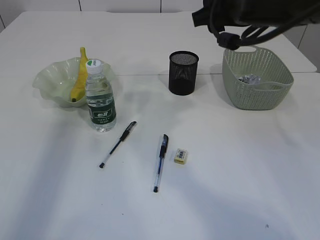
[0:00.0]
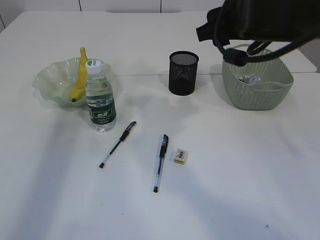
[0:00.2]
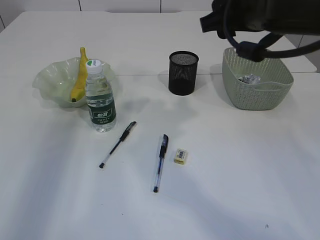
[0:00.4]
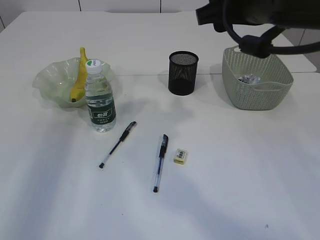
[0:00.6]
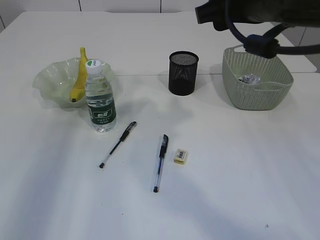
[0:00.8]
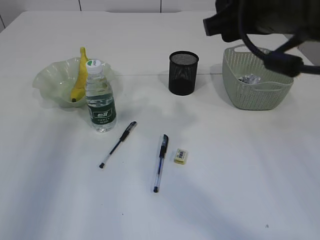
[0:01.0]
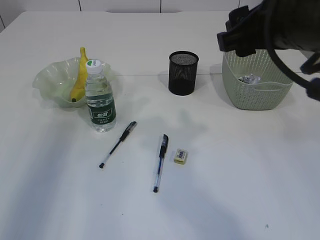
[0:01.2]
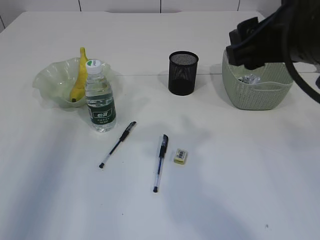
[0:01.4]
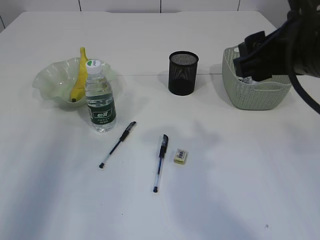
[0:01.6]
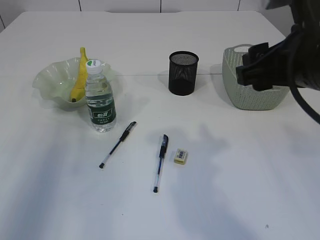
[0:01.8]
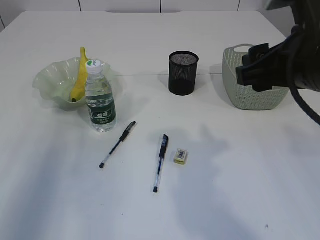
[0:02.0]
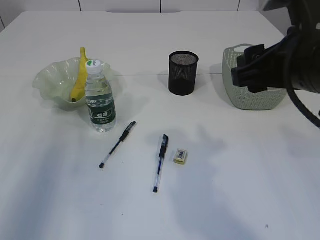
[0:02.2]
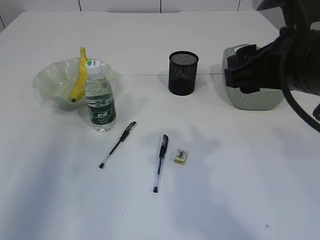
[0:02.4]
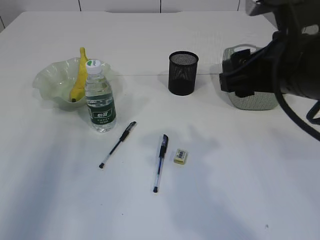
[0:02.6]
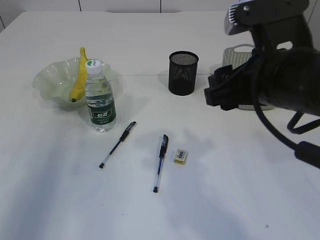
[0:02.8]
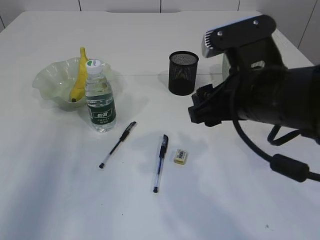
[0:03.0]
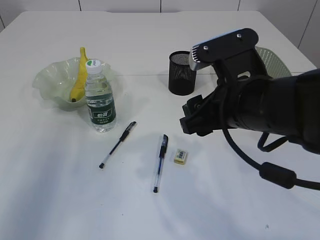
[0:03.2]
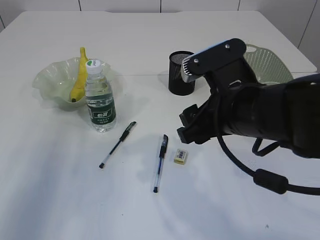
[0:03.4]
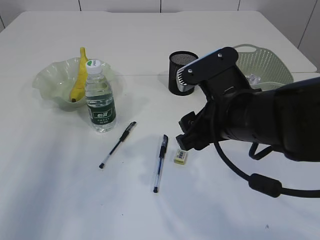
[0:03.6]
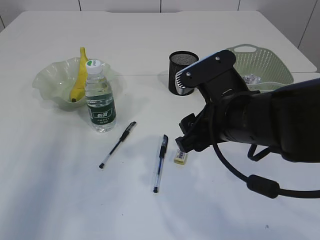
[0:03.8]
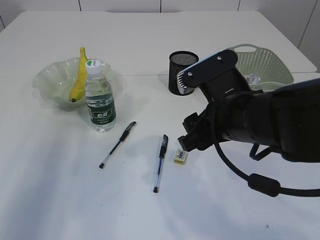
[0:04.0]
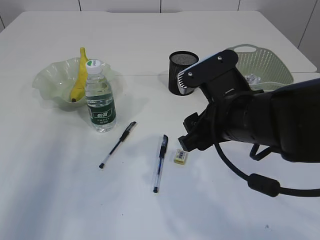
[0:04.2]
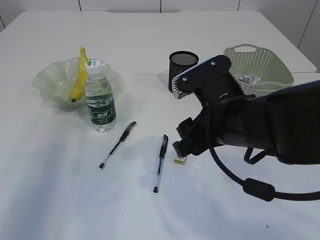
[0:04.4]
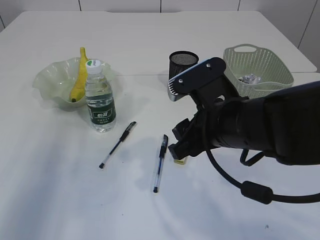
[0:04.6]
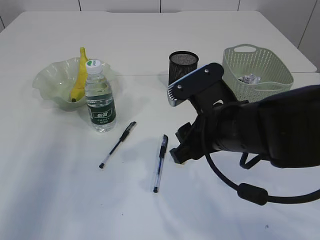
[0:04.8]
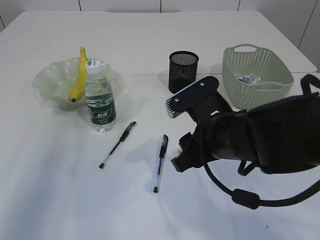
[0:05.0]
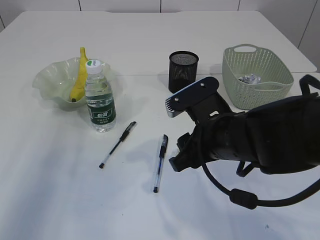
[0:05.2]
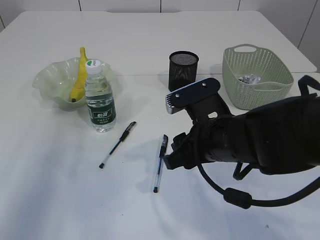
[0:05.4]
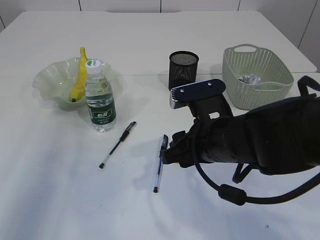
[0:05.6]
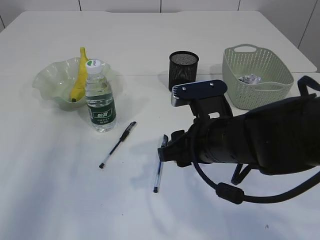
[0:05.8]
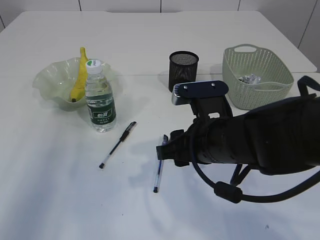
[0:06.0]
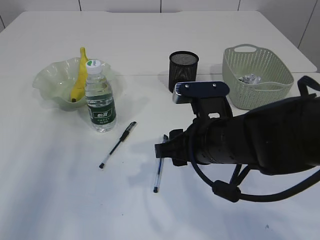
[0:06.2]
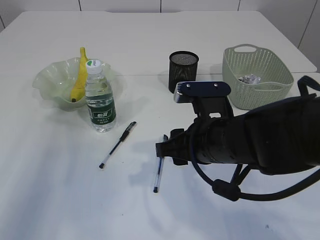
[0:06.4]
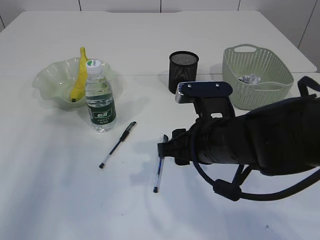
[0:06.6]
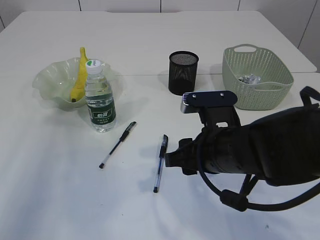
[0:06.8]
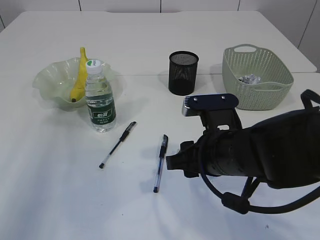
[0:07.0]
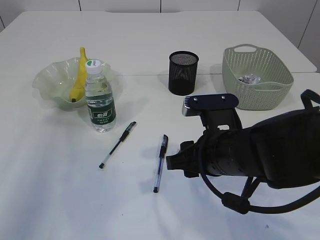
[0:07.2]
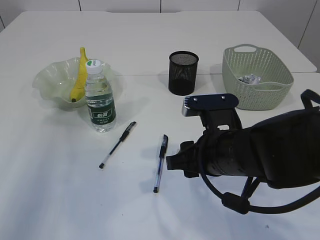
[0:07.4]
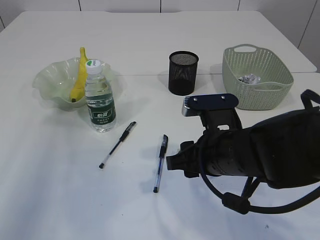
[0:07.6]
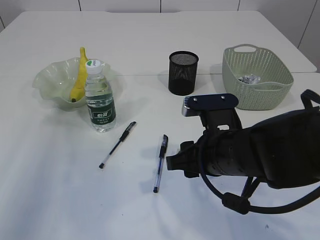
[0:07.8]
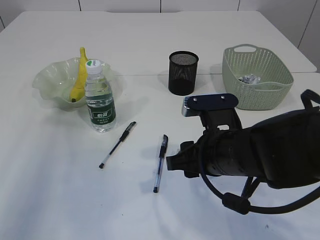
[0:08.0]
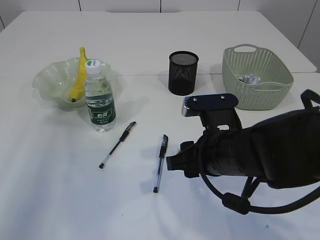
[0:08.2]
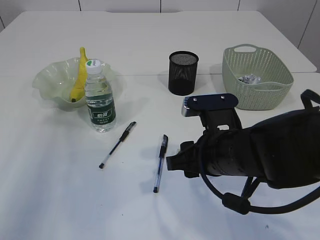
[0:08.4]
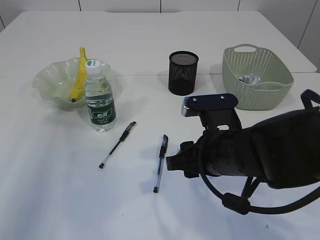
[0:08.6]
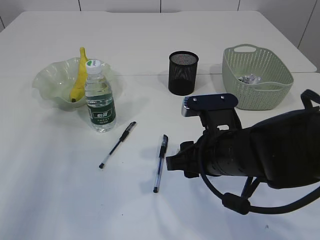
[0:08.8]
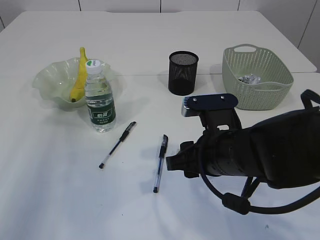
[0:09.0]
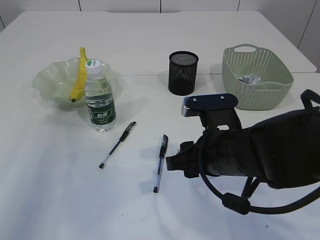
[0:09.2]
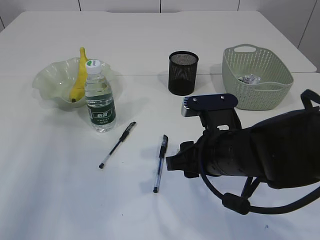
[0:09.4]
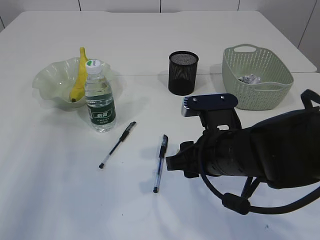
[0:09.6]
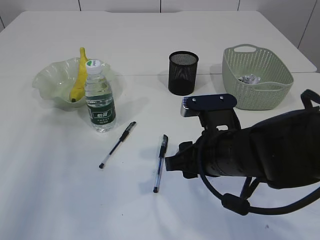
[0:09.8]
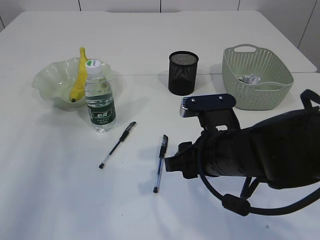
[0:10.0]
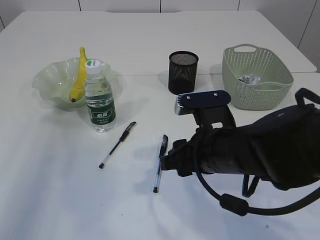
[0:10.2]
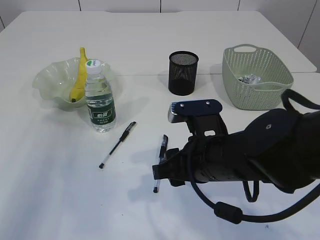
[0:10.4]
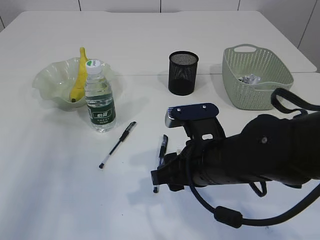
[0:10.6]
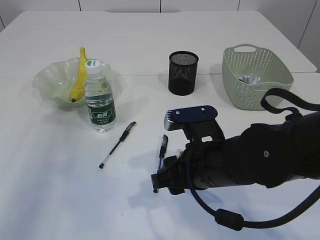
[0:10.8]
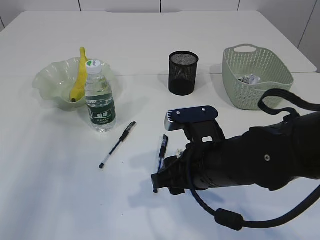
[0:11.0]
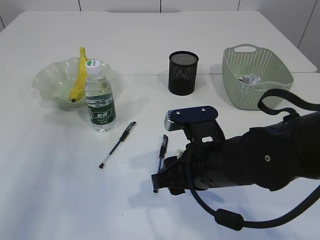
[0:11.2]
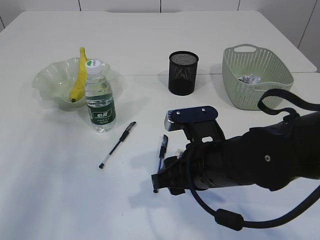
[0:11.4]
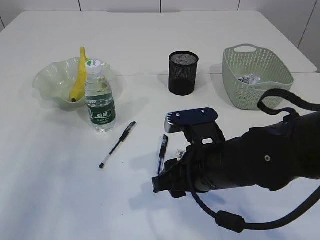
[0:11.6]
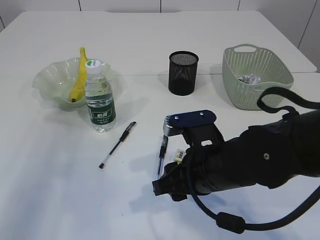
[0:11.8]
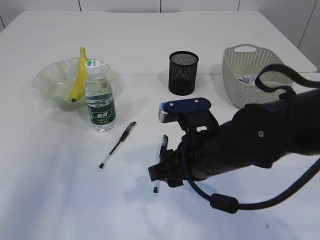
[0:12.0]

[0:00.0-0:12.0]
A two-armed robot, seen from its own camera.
0:00.0 to 0:01.6: Both grippers travel together backward, about 10 cm.
0:01.6 to 0:03.0: The right gripper shifts approximately 5 cm downward.
0:03.0 to 0:04.4: The right gripper moves some 5 cm.
0:06.0 to 0:07.6: The grippers stay close to where they were, moving slightly.
0:07.6 to 0:09.0: Both grippers stay put.
0:09.0 to 0:12.0: The grippers make only small movements.

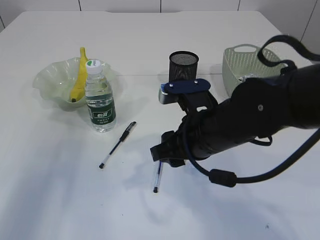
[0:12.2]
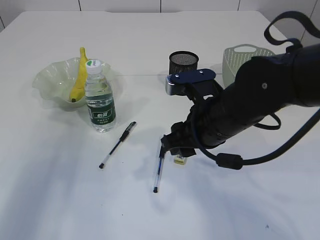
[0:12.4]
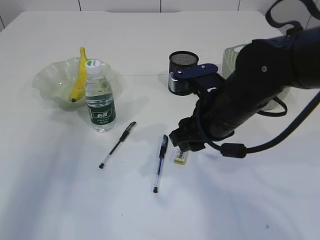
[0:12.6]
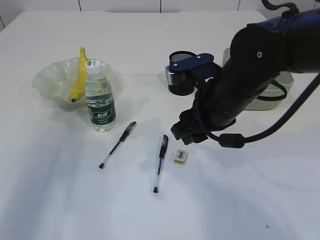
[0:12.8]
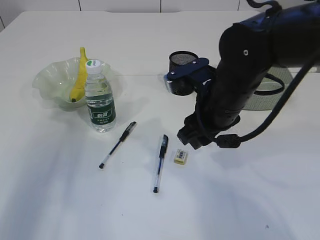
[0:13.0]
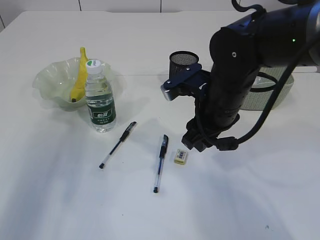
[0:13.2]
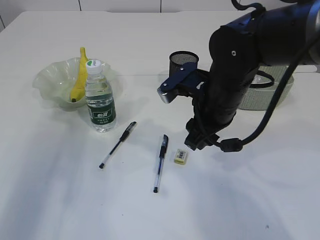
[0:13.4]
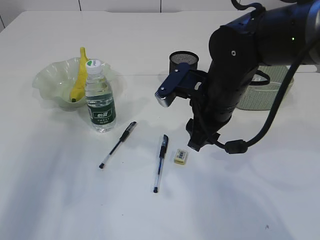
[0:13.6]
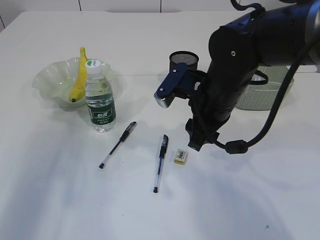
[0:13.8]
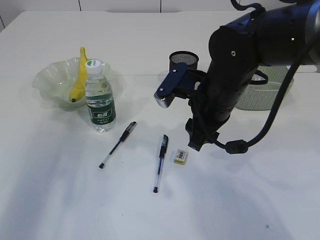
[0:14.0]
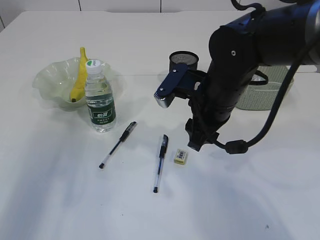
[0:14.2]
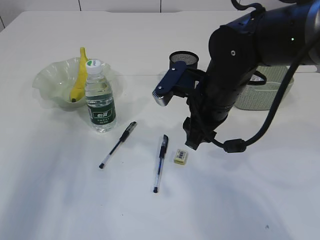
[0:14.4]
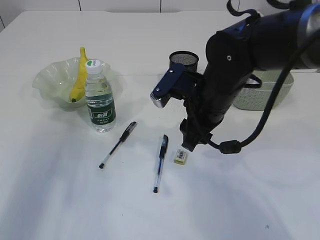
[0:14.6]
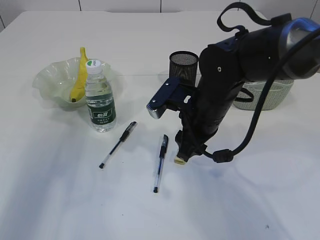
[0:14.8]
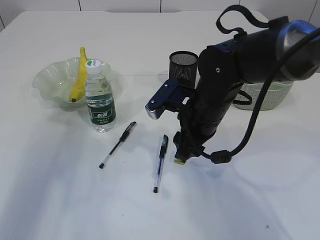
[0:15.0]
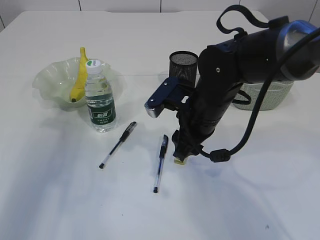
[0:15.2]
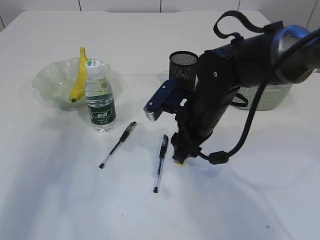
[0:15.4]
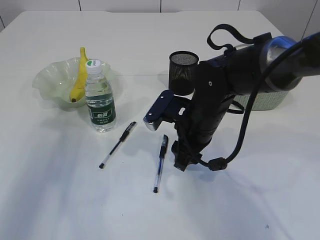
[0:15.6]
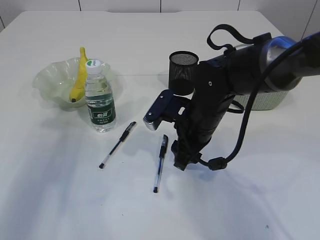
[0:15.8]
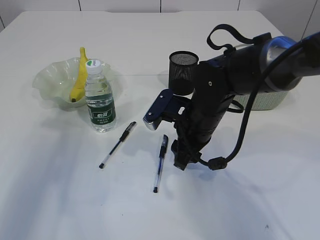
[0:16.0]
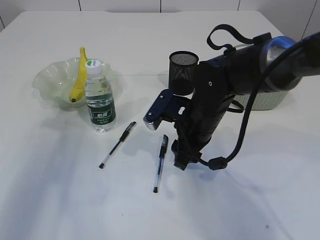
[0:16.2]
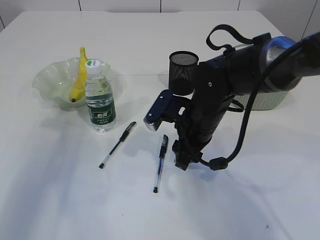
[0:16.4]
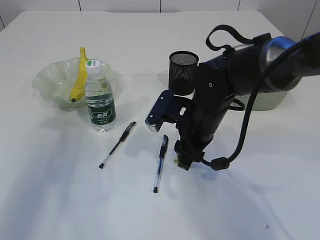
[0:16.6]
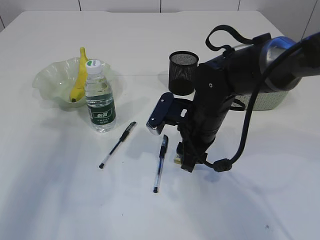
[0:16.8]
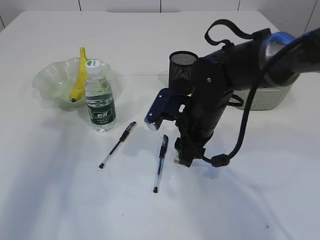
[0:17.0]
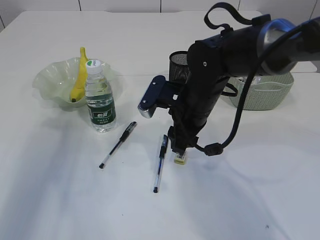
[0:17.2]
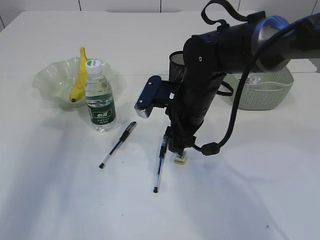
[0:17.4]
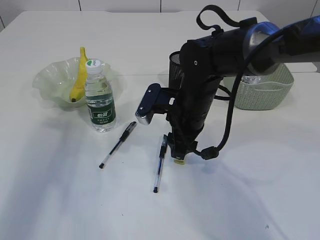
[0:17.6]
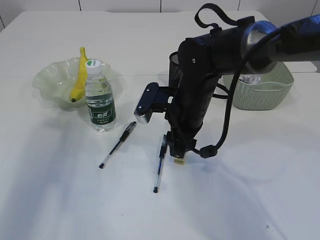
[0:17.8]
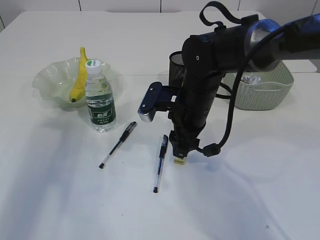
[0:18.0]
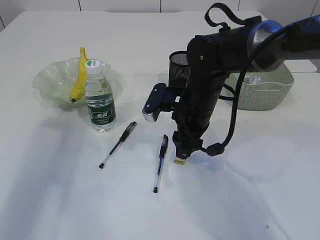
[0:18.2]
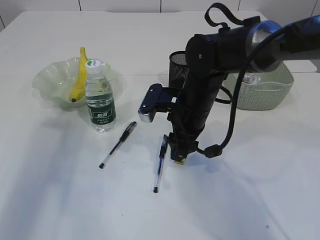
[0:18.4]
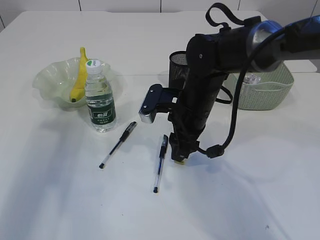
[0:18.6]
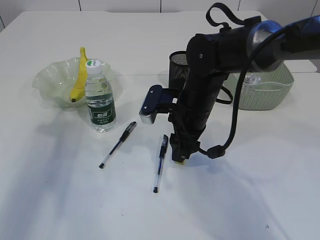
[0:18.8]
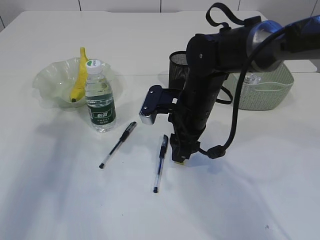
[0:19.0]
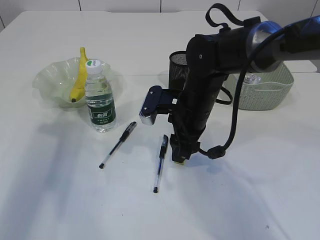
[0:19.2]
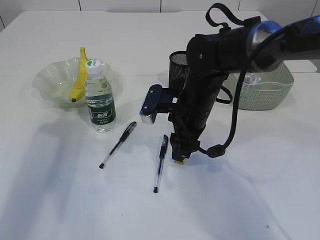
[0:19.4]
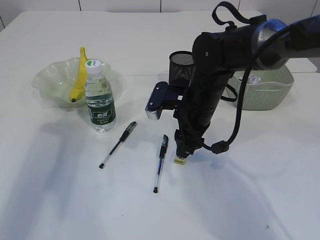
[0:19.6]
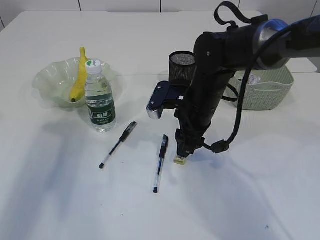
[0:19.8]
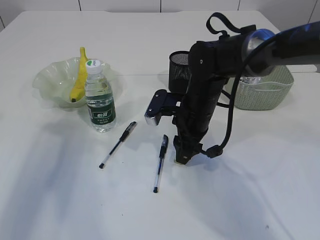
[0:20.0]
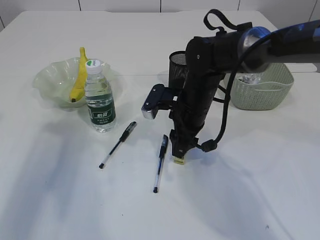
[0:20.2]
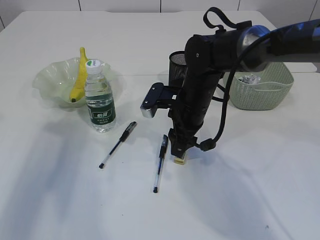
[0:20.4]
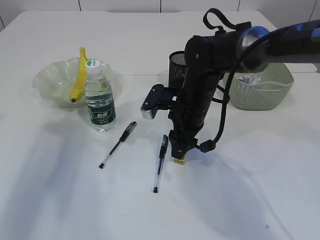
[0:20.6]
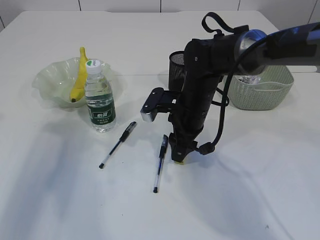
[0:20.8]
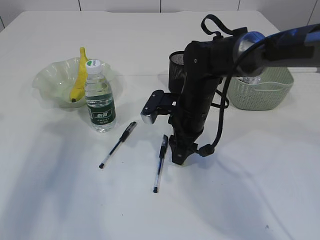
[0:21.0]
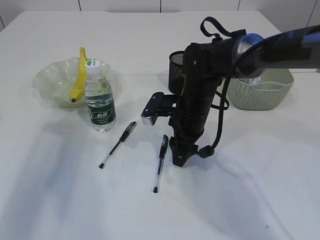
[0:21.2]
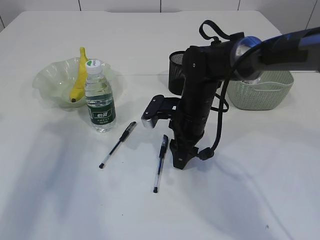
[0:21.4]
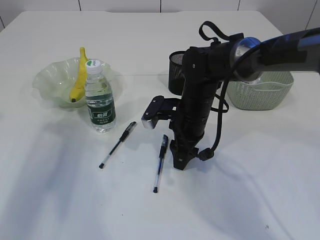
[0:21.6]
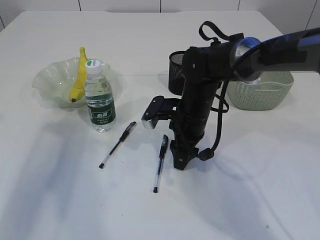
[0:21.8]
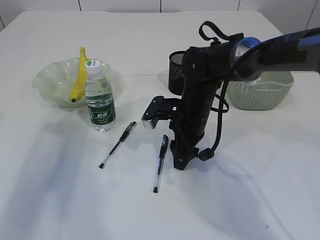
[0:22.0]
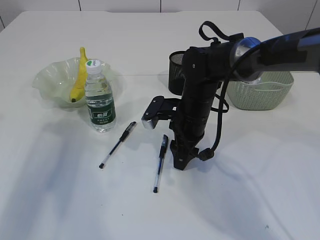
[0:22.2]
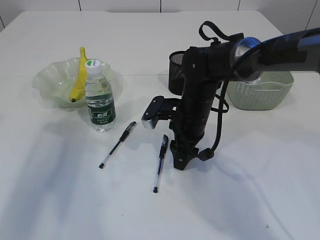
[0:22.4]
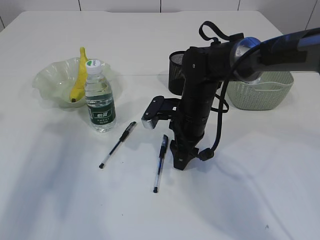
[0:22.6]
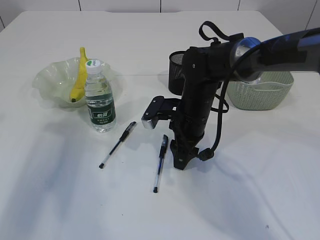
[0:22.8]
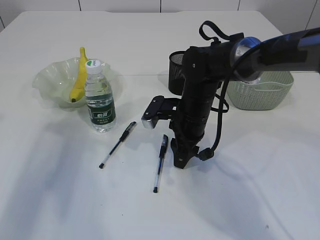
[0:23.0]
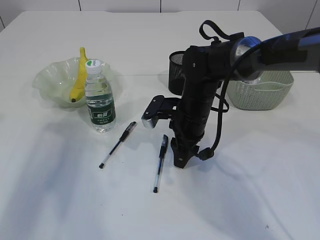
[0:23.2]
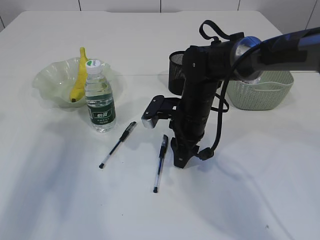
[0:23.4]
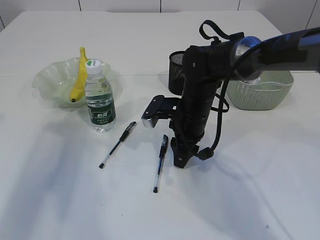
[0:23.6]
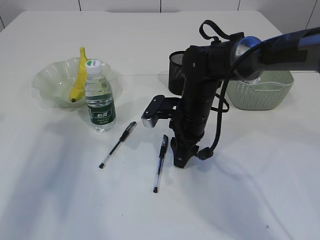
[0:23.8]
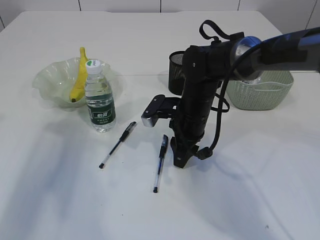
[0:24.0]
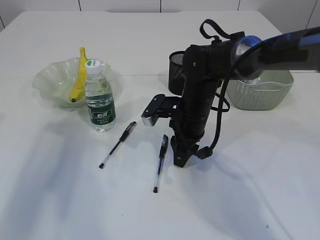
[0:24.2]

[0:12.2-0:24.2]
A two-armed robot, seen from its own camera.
0:12.2 to 0:13.8: The right gripper goes some 5 cm forward.
0:13.8 to 0:15.2: The grippers make only small movements.
0:15.2 to 0:18.2: There are only small adjustments of the grippers.
0:18.2 to 0:21.2: There are only small adjustments of the grippers.
0:21.2 to 0:24.2: The two grippers keep their place.
